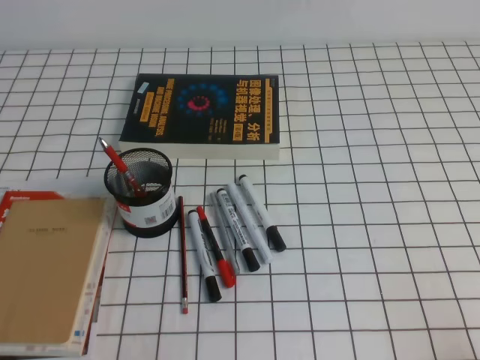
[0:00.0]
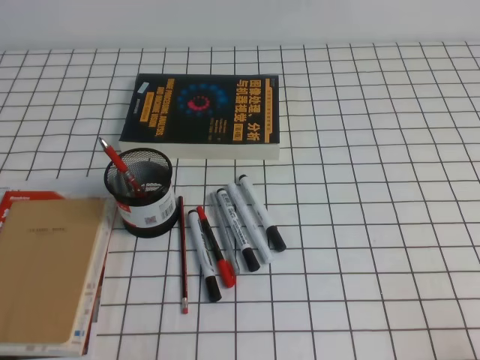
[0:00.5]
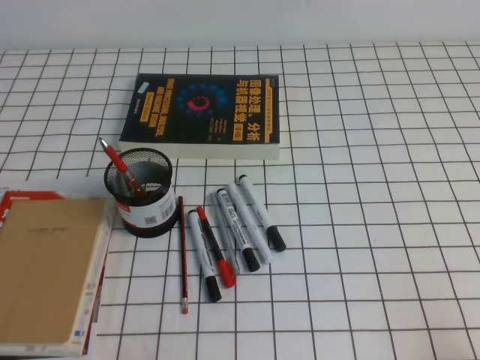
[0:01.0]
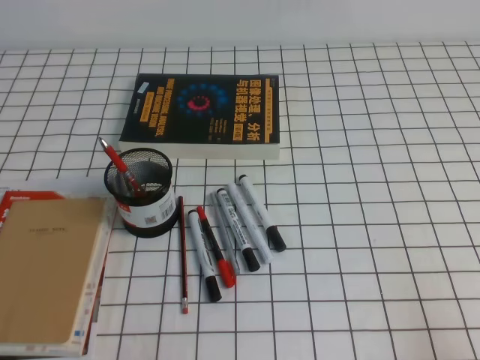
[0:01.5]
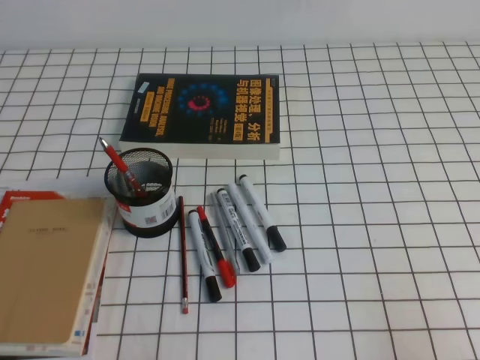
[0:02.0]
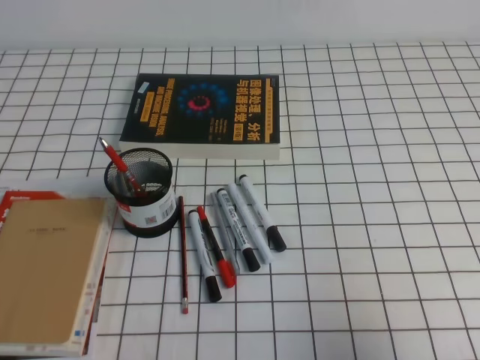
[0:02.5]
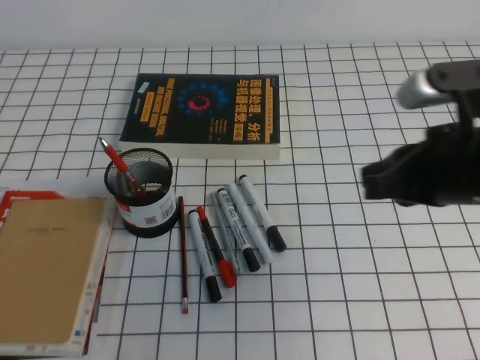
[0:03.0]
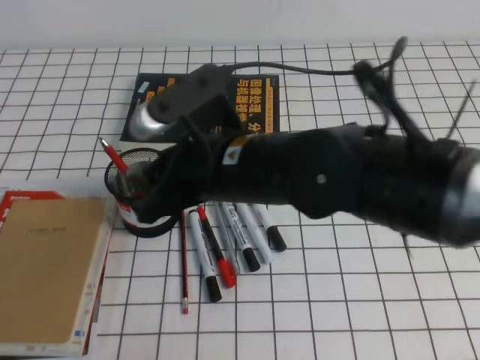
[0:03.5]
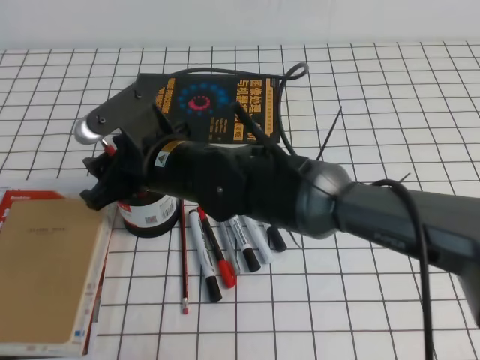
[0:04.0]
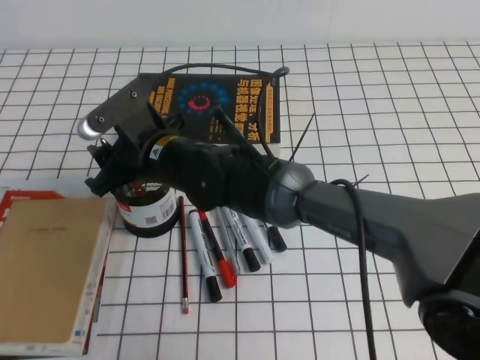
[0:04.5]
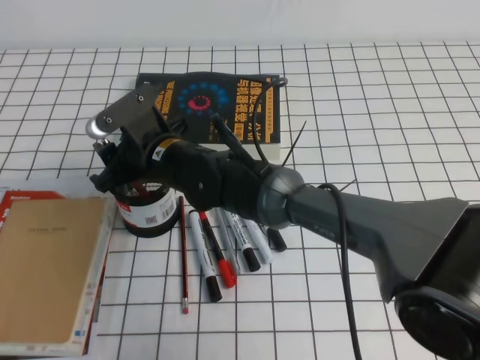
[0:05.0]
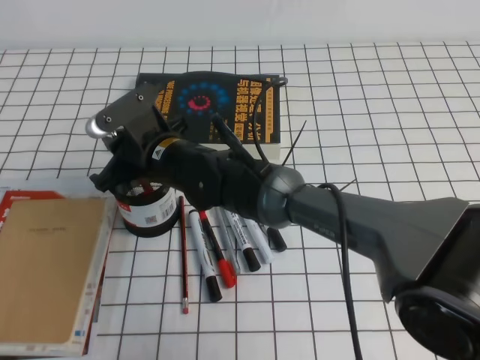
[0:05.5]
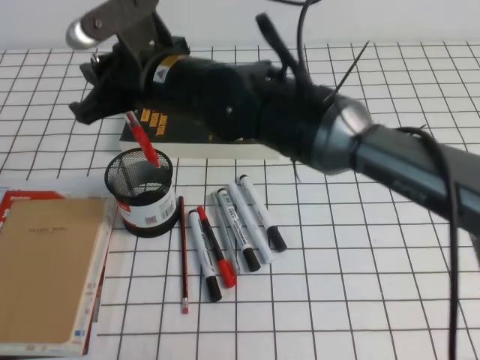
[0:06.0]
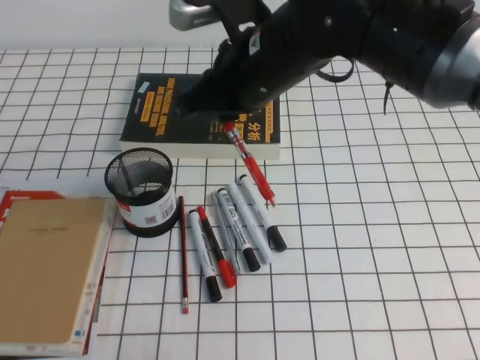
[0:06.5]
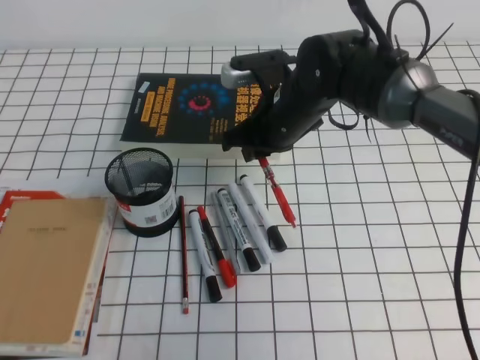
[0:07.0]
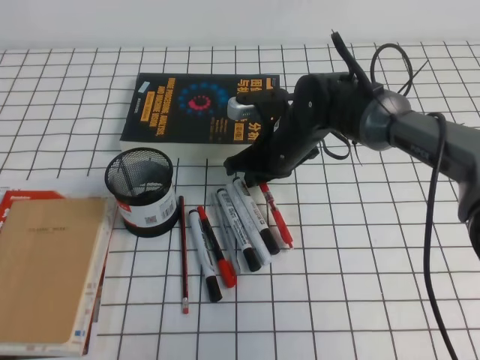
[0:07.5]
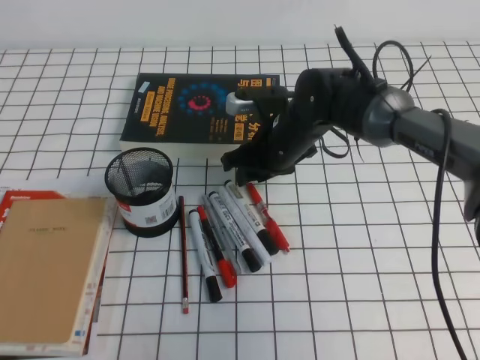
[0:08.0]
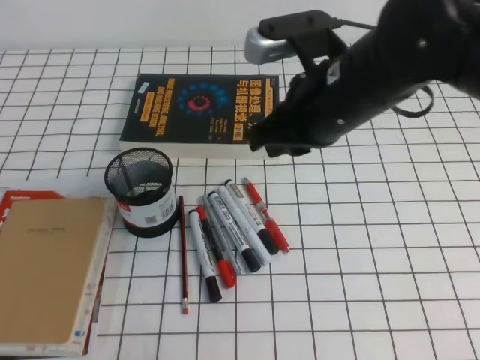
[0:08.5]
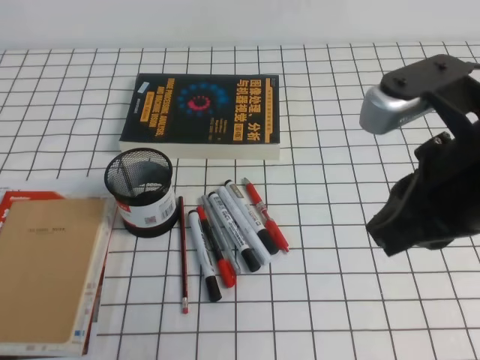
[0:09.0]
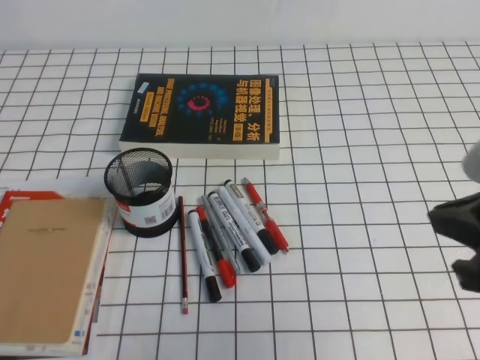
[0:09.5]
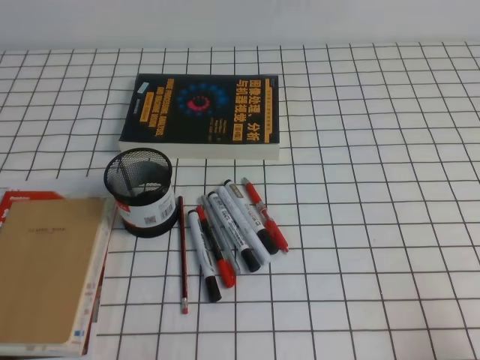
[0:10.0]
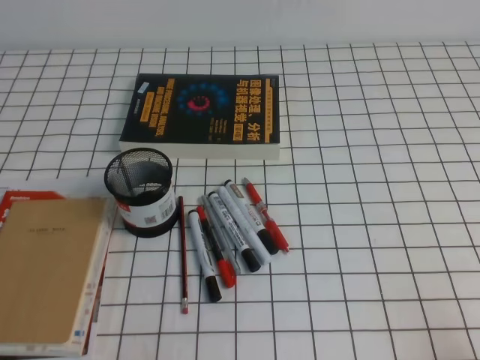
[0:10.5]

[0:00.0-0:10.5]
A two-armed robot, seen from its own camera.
Step, 0:00.0 to 0:10.5: Pick up the pen from the pen holder.
0:02.0 to 0:04.0: The right gripper shifts about 40 cm to the left and forward, and opens its fingers.
0:04.0 to 0:06.5: The right gripper shifts about 15 cm upward and to the right, and closes.
0:06.5 to 0:08.5: The right gripper heads to the right, covering approximately 5 cm, moves about 15 cm downward and comes back, and opens, then closes once more.
0:08.5 to 0:10.5: The right gripper is displaced backward, to the right and downward by roughly 40 cm.

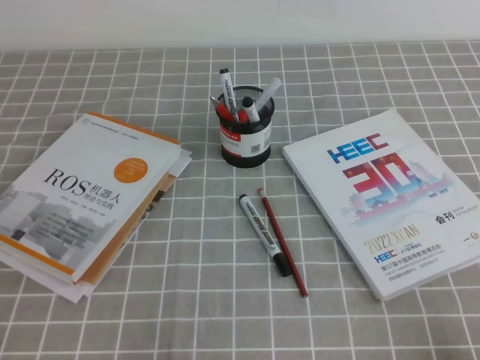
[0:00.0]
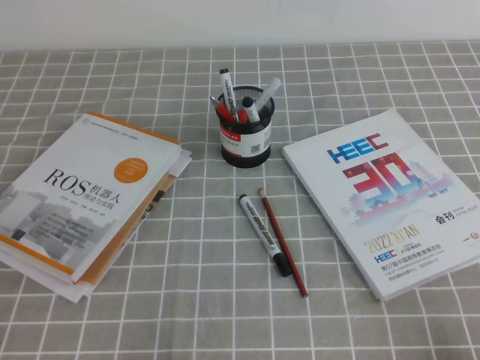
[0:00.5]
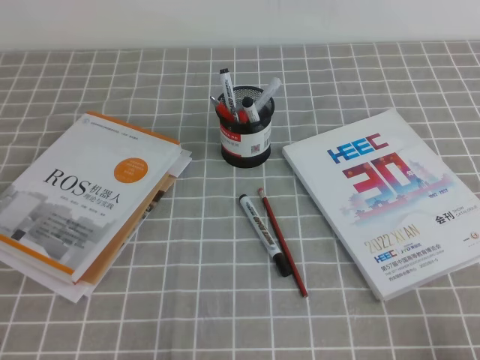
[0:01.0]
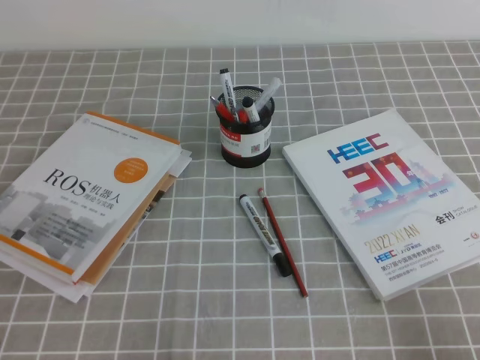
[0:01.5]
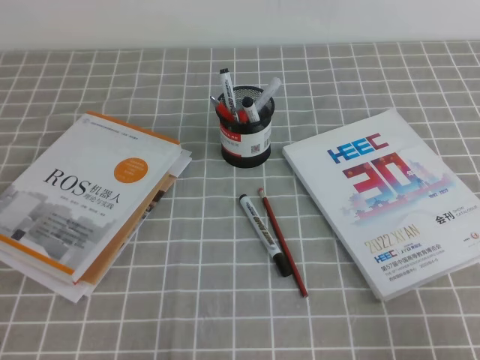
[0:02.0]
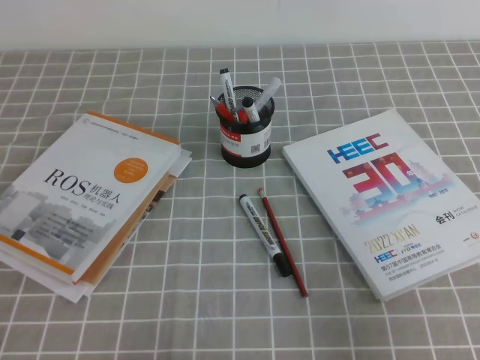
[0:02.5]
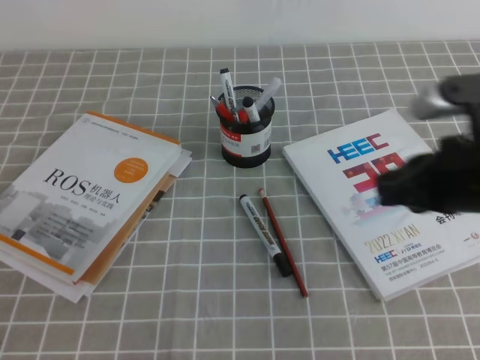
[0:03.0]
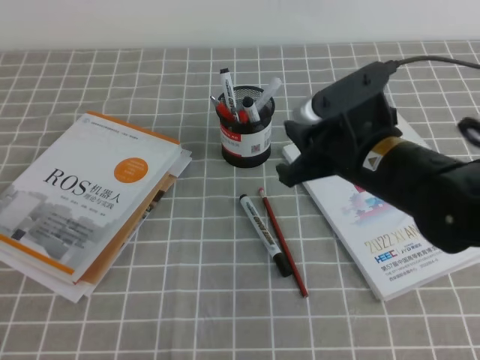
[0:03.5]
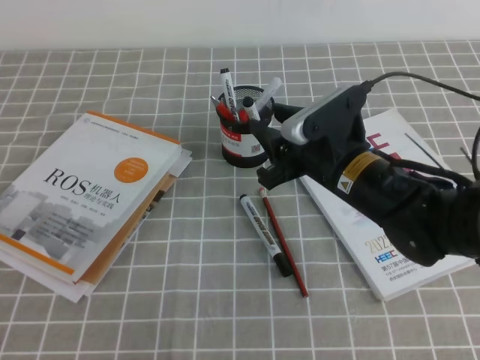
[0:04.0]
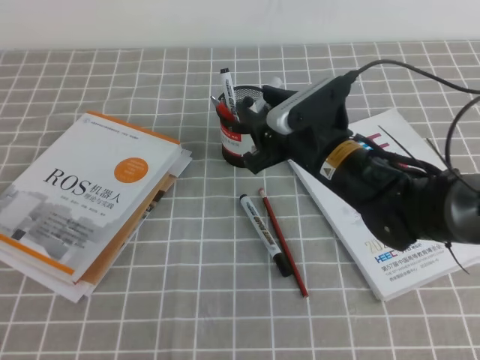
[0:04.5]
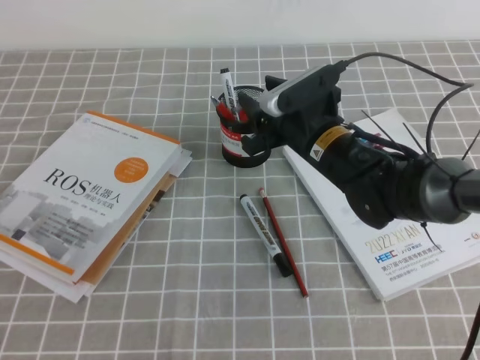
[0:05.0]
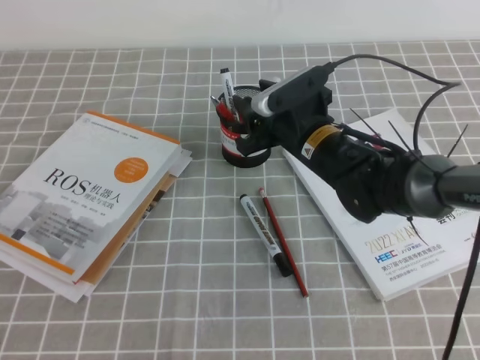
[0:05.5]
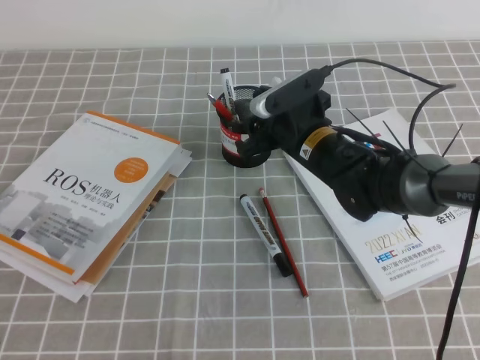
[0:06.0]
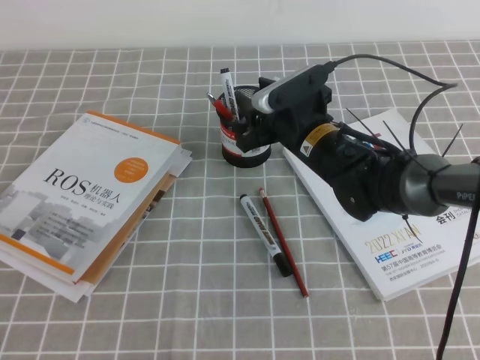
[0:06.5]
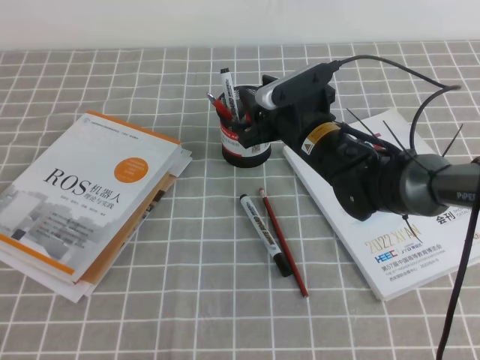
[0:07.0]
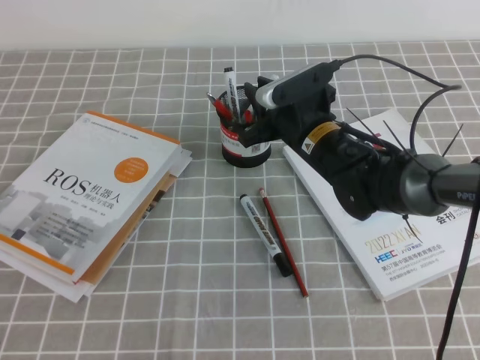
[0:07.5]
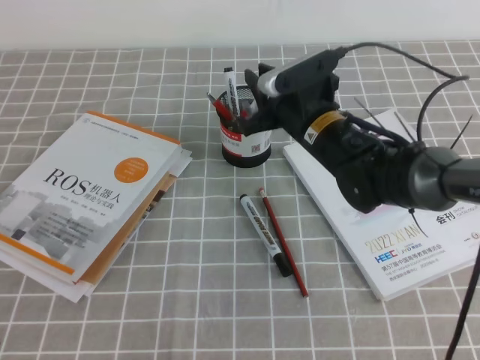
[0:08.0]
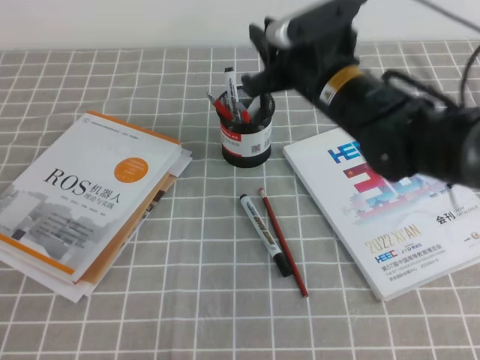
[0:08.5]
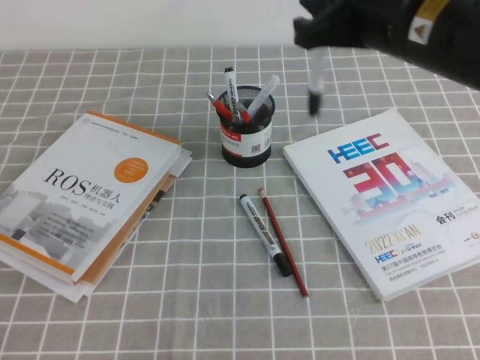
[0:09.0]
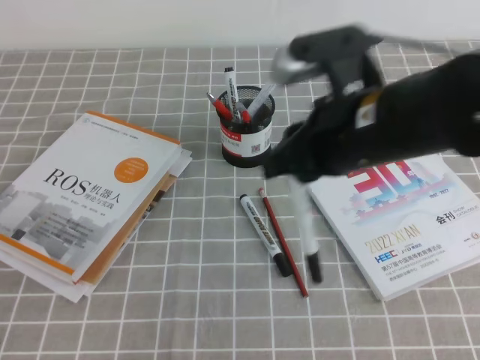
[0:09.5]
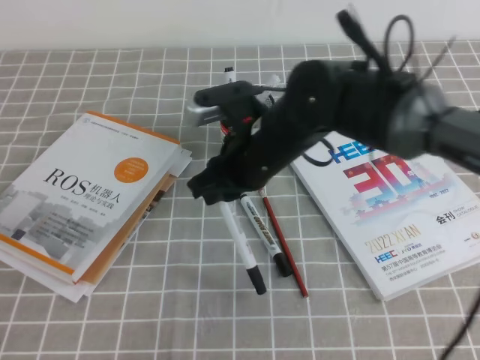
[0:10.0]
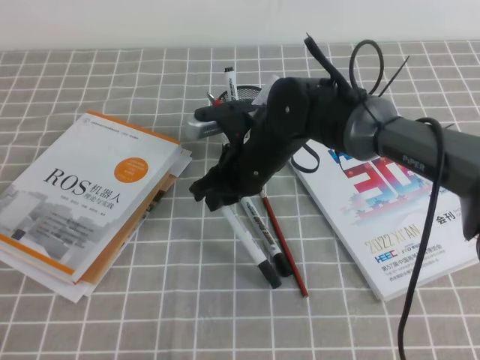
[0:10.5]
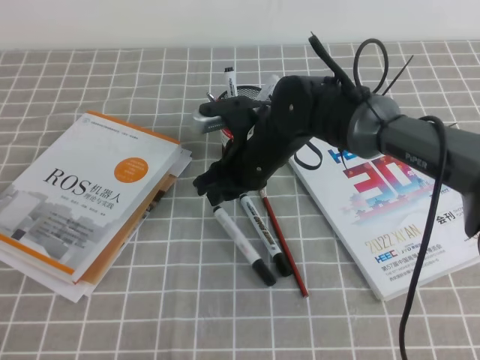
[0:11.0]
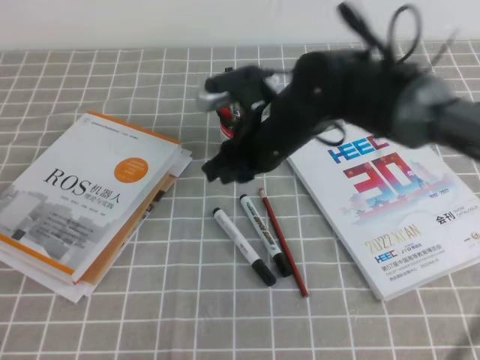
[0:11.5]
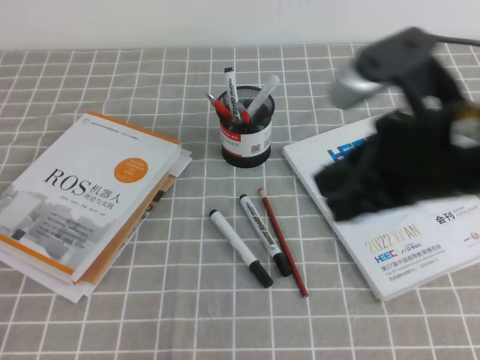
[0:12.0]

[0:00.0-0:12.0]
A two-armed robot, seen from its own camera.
0:02.0 to 0:04.0: The right gripper moves forward and to the left, about 35 cm, and opens.
0:04.0 to 0:06.0: The right gripper goes approximately 10 cm forward.
0:06.0 to 0:08.0: The right gripper closes its fingers.
0:08.0 to 0:10.0: The right gripper is displaced backward by about 5 cm, and goes upward and returns, approximately 15 cm each way.
0:10.0 to 0:12.0: The right gripper travels backward, to the right and upward by roughly 20 cm.

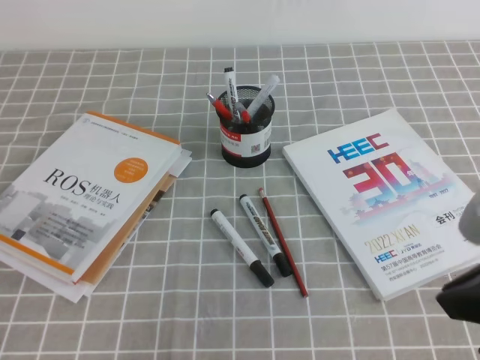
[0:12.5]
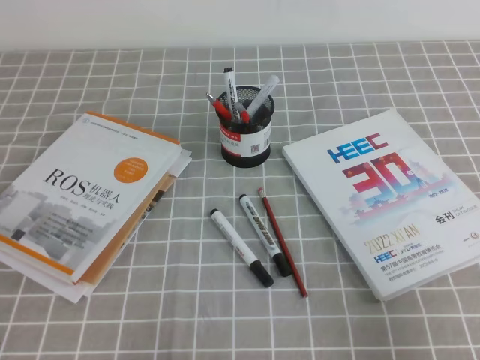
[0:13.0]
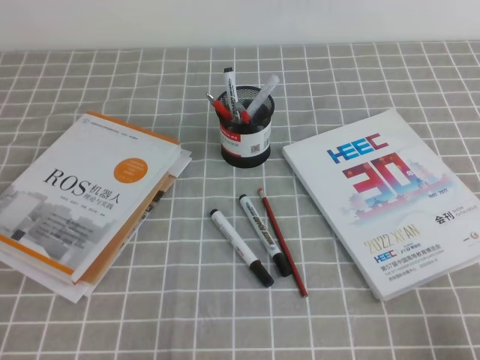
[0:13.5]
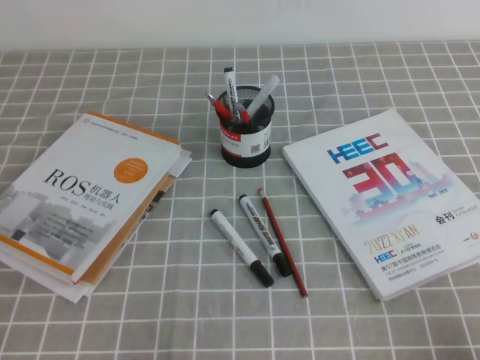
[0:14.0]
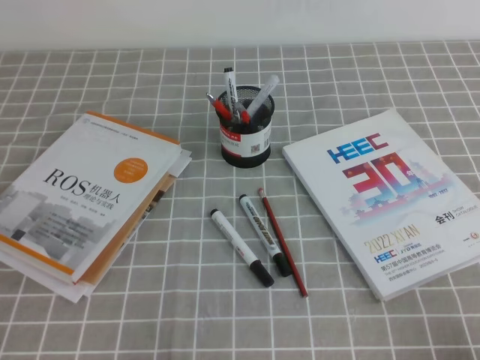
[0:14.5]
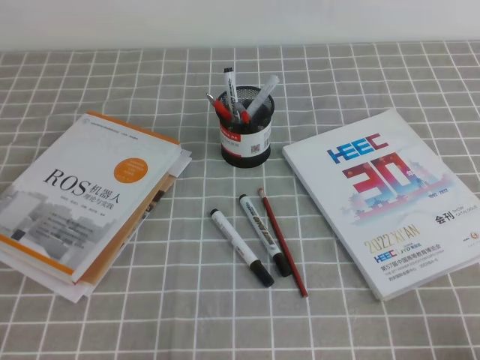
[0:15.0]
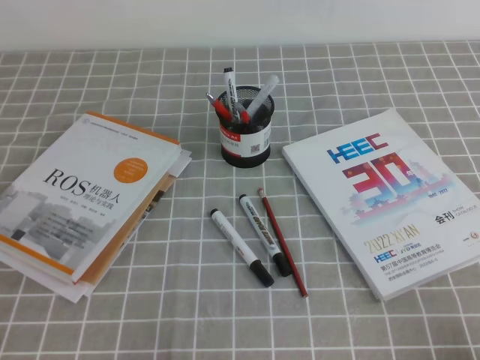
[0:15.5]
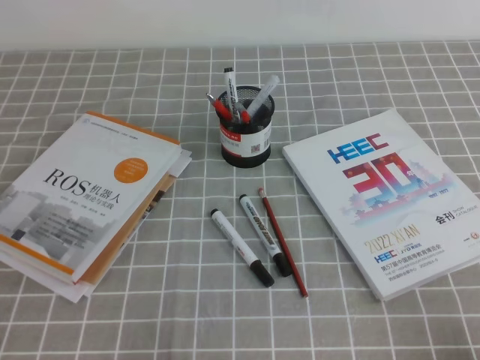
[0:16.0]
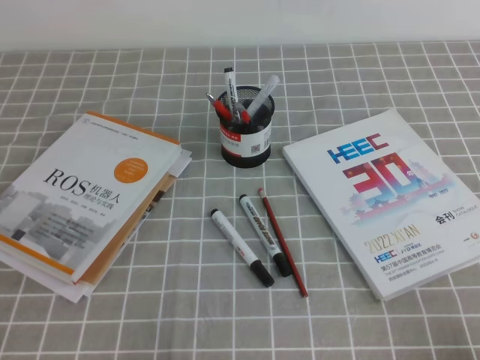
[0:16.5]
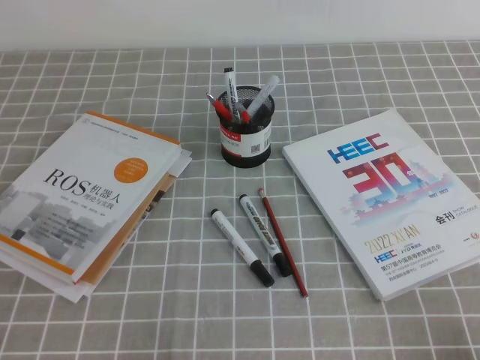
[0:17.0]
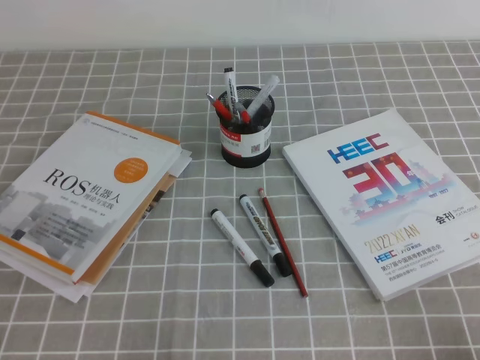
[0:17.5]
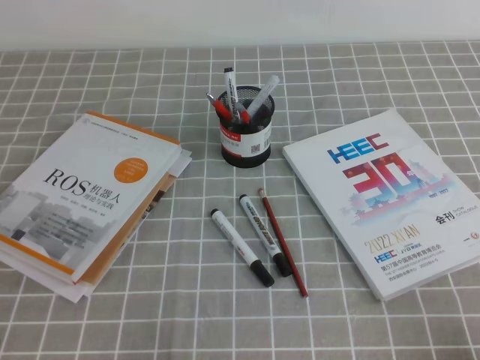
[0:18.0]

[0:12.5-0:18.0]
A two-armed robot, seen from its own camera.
Step, 0:12.5 to 0:18.0: Pick up the pen from the pen holder.
0:12.5 to 0:14.5: The right gripper goes about 25 cm downward, to the right and backward.
0:14.5 to 0:18.0: Neither gripper changes place.
